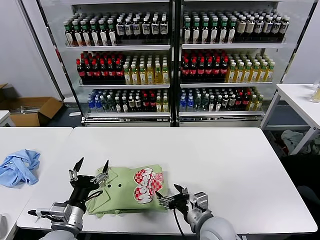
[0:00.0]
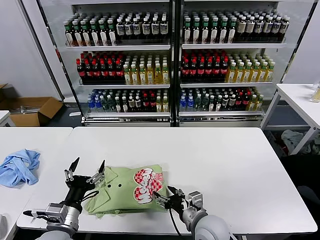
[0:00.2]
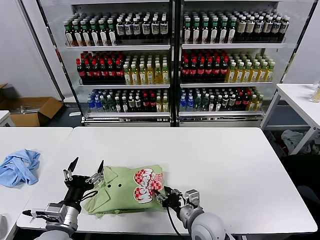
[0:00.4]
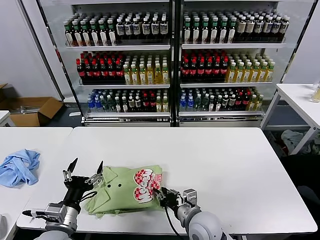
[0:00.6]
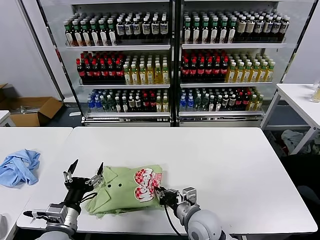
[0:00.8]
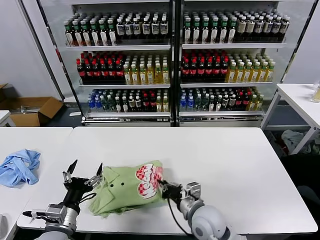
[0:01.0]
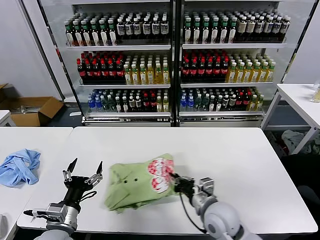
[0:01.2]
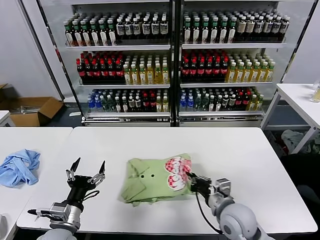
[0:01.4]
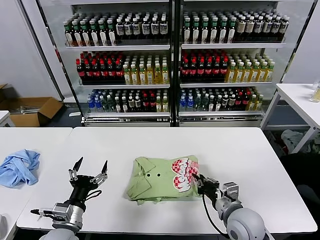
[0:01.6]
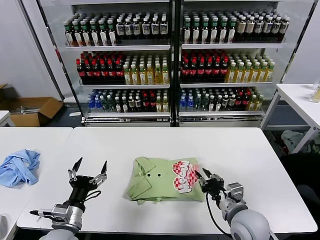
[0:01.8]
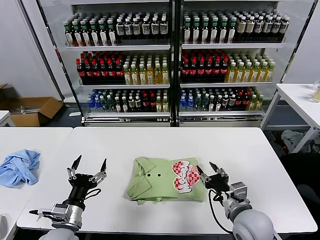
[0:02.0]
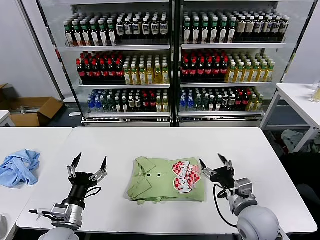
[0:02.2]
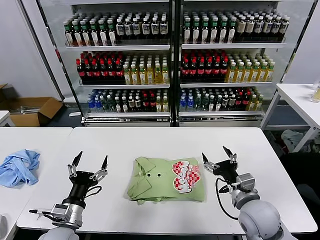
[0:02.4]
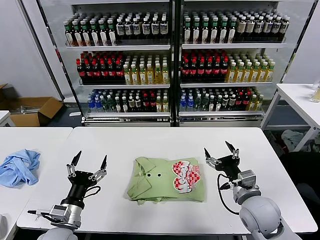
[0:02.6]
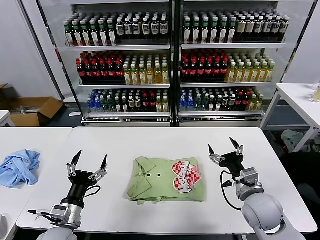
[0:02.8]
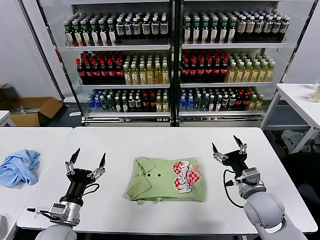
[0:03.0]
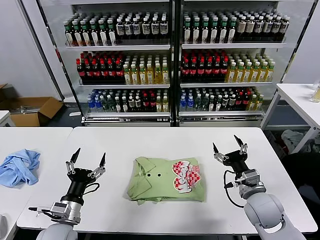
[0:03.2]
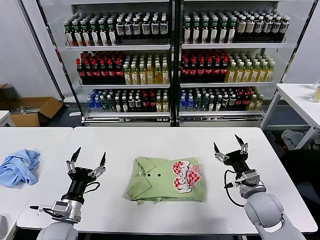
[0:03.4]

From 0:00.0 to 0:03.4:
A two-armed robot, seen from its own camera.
Task of the whole recording: fold and organize the clothes.
Step, from 0:00.0 to 0:01.8: Drag the clothes to the center of the table.
From 0:00.0 to 0:01.6: The right gripper is displaced to the right by about 5 cm, and closes.
From 0:01.6 to 0:03.4: The right gripper heads to the right, covering roughly 5 cm, and opens.

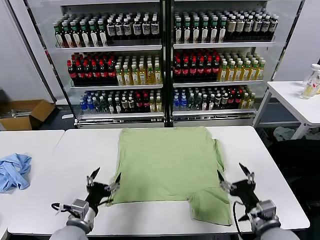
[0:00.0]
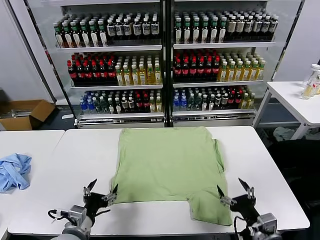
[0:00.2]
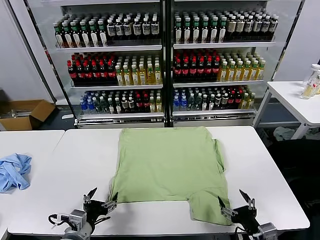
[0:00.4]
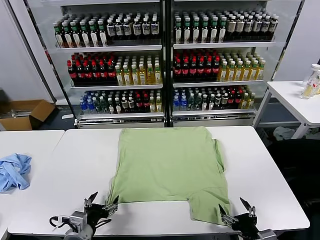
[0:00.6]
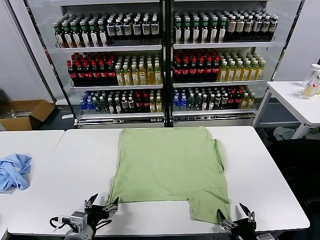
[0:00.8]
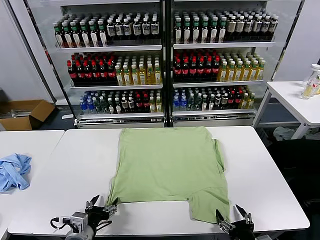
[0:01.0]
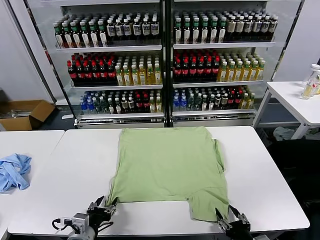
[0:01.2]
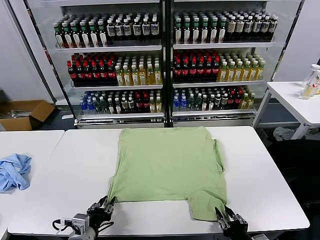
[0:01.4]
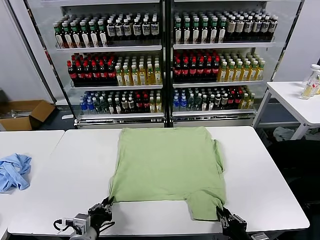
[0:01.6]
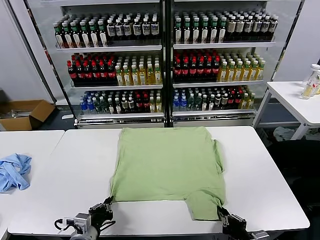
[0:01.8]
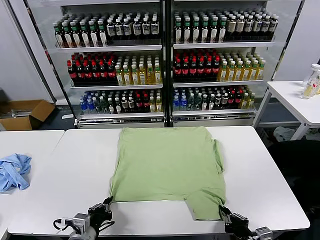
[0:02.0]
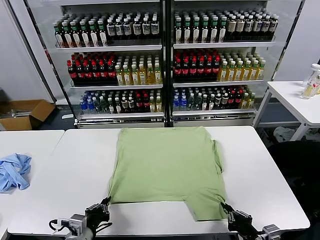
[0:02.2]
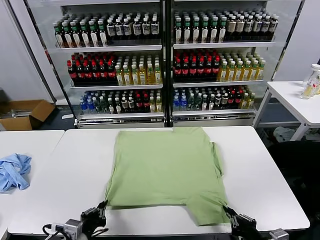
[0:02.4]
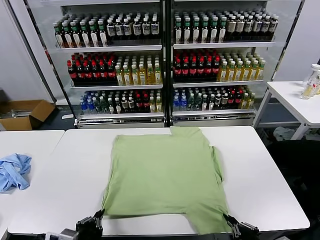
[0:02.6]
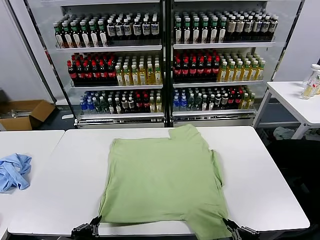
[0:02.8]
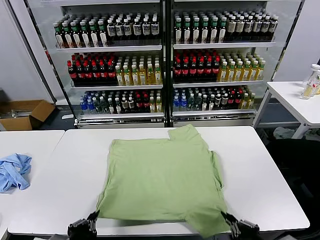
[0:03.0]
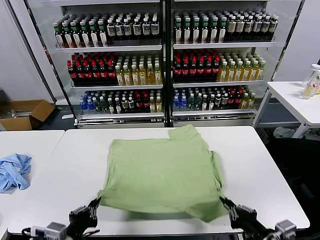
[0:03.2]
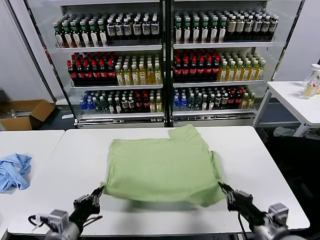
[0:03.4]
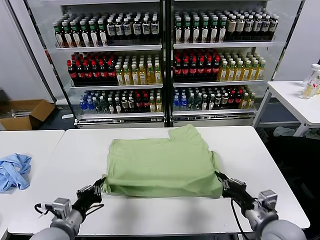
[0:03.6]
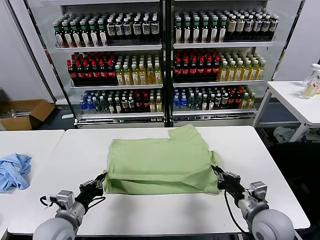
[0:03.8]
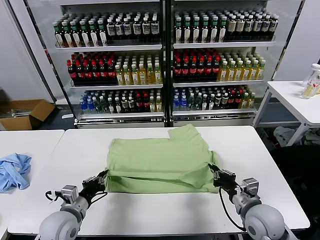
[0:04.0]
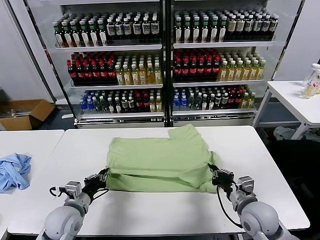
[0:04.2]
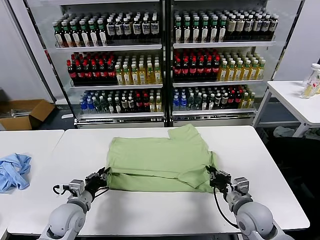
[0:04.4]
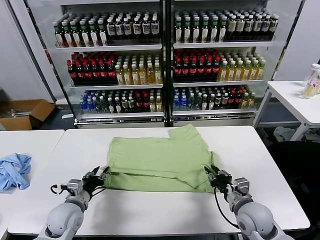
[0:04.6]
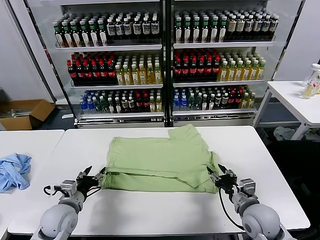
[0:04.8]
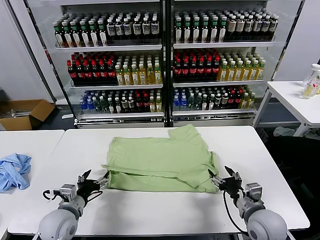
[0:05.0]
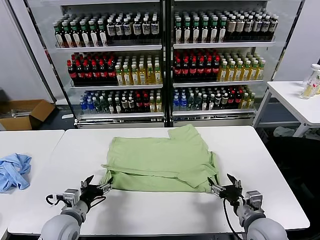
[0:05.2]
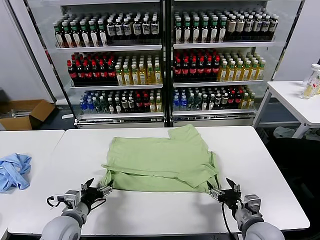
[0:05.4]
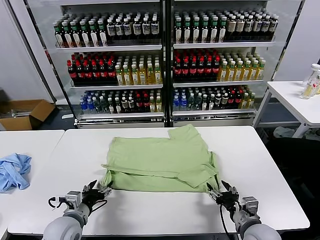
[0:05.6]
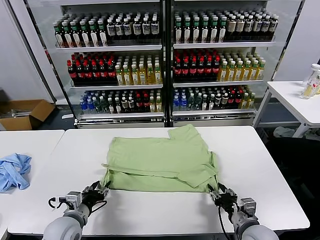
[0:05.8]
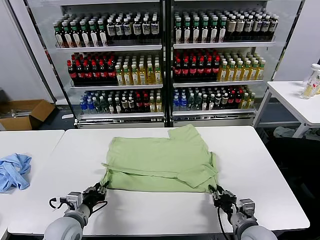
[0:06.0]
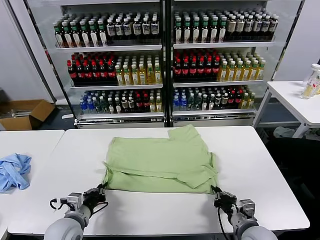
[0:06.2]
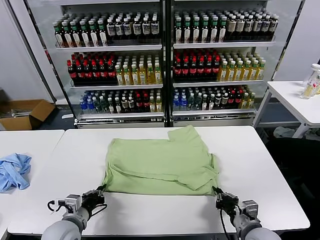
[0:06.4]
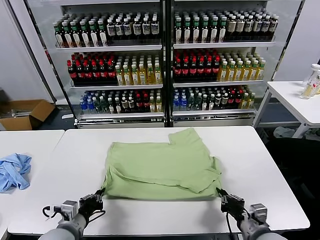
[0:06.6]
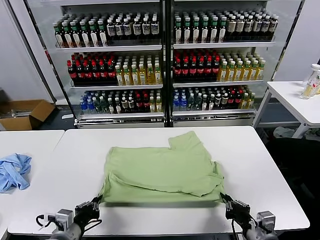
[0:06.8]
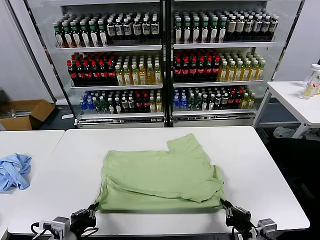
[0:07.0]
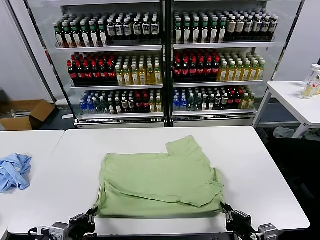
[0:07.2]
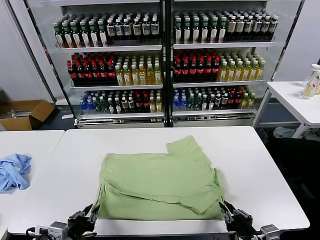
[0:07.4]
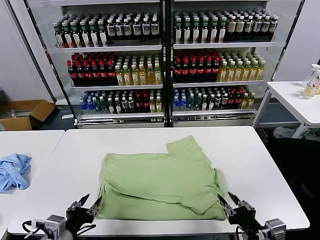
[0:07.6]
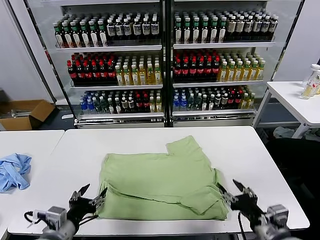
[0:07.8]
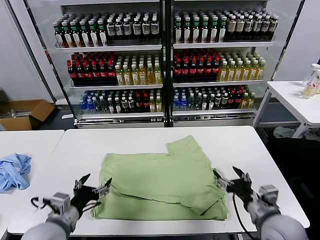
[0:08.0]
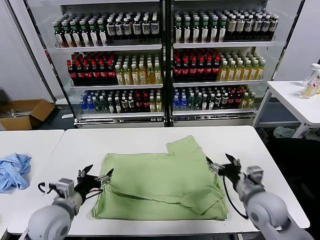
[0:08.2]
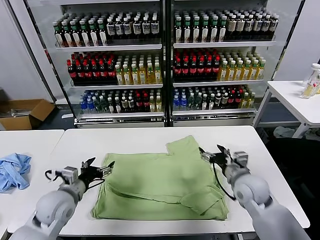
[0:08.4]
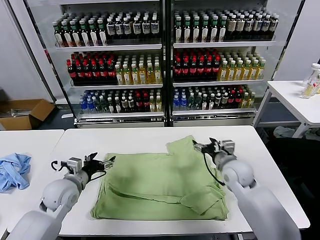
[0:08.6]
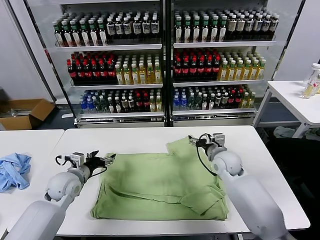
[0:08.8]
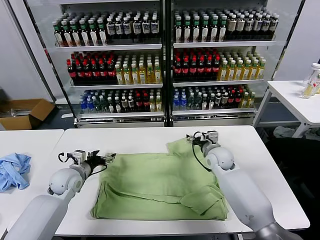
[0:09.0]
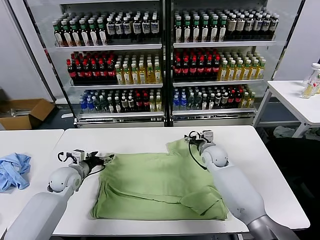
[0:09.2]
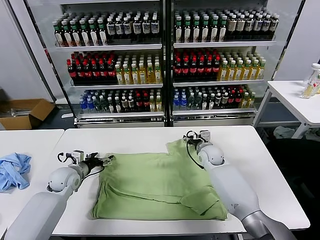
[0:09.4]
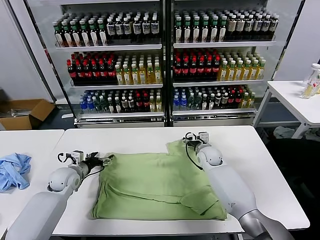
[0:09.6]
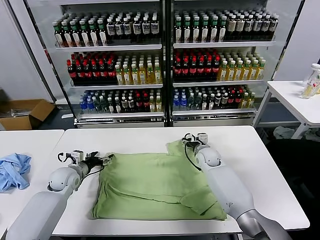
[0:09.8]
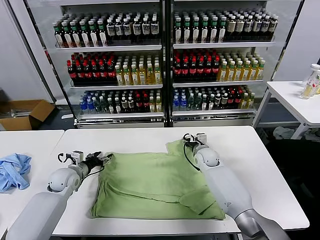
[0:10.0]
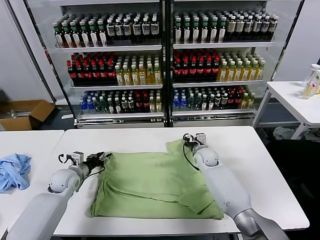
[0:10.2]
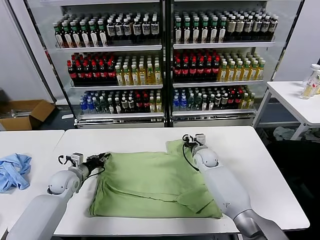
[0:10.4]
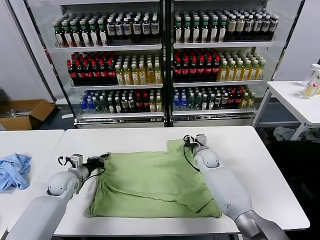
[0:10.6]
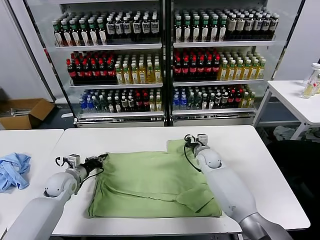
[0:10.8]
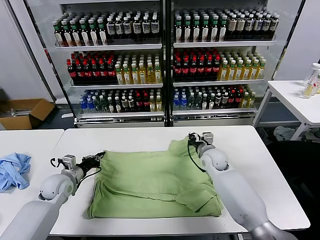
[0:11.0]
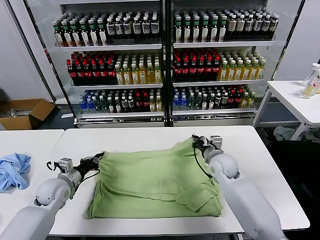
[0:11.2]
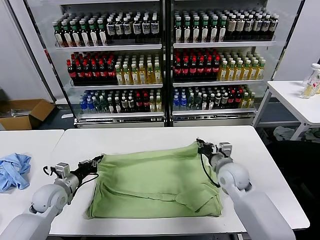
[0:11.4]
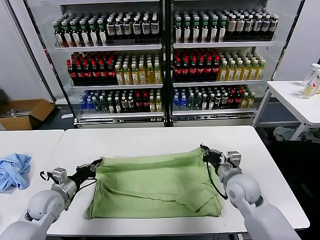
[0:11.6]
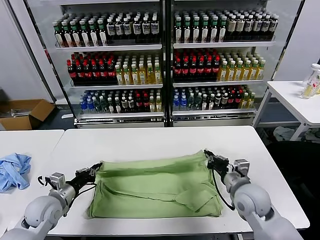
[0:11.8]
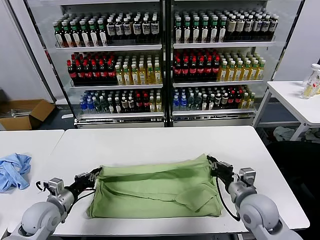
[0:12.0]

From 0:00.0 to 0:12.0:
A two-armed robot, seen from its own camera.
Task of the whole recording: fold and organize the clothes.
Step, from 0:00.0 to 0:02.2: use both grippers simultaneously to clamp the lower edge of the clothing fabric.
Step, from 0:02.4 to 0:04.8: use both grippers to drag the lower edge of the fabric forward and fold it over the upper edge.
Step, from 0:05.0 to 0:07.4: Drag the clothes downward with both gripper.
Step, from 0:07.6 to 0:10.6: use both grippers simultaneously to clamp the upper edge of the clothing fabric.
From 0:01.6 to 0:03.0: The right gripper is displaced upward by approximately 10 cm. The left gripper travels upward and backward by approximately 10 cm.
From 0:03.0 to 0:04.4: The grippers both shift forward and downward by some 20 cm.
From 0:04.4 to 0:06.0: The left gripper opens, then closes once more; the right gripper goes some 5 cm backward, and opens, then closes again.
From 0:06.0 to 0:07.6: The right gripper moves upward and backward, approximately 10 cm, and opens up. The left gripper moves backward and upward, approximately 15 cm, and closes and opens again.
From 0:07.6 to 0:09.0: The grippers both shift forward by some 30 cm. The left gripper opens its fingers. Meanwhile the right gripper opens up.
From 0:09.0 to 0:10.4: The left gripper shifts by about 5 cm, and closes up, while the right gripper is displaced downward by approximately 5 cm, and closes.
From 0:10.4 to 0:12.0: The right gripper heads backward, covering about 25 cm, while the left gripper travels backward by some 15 cm.

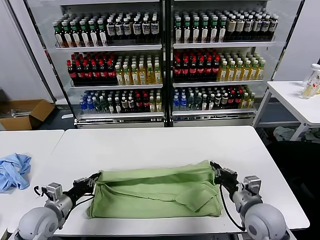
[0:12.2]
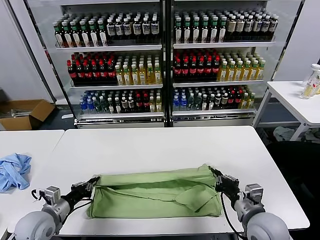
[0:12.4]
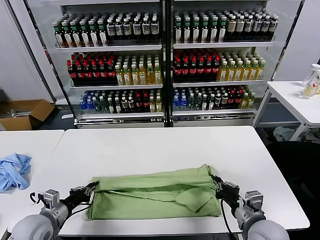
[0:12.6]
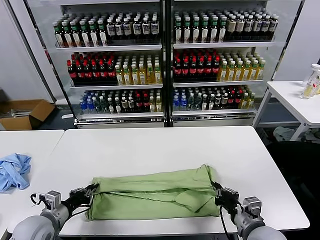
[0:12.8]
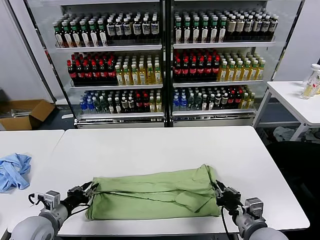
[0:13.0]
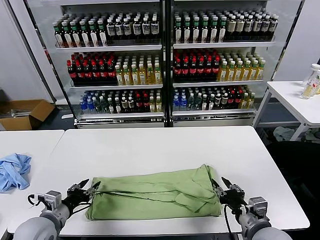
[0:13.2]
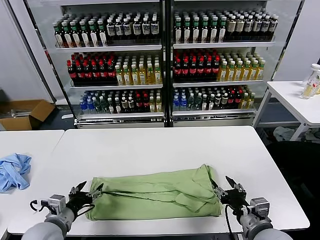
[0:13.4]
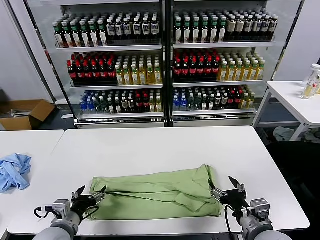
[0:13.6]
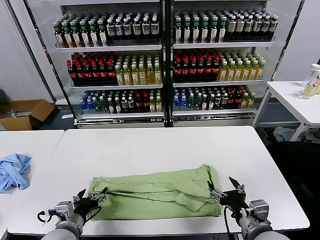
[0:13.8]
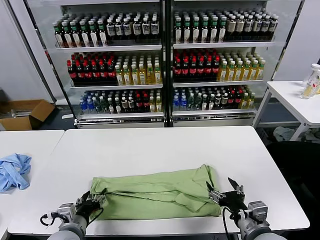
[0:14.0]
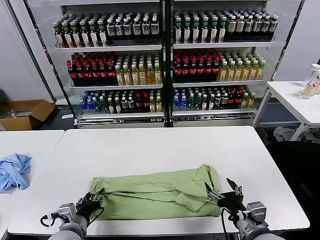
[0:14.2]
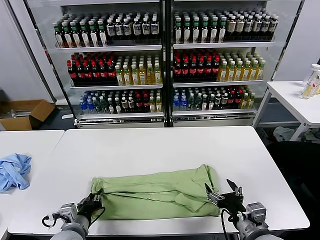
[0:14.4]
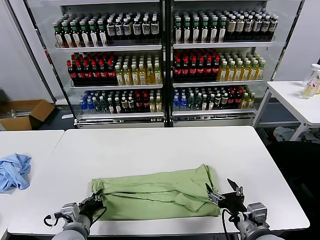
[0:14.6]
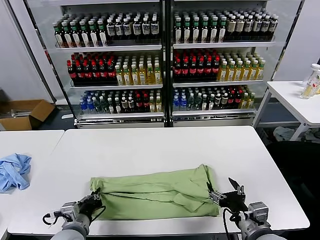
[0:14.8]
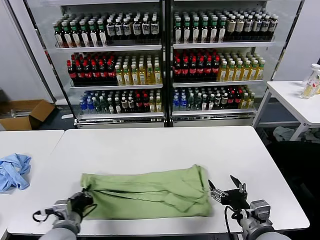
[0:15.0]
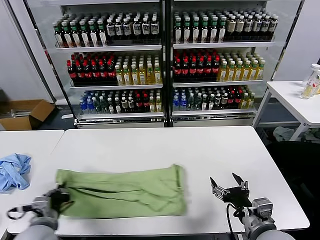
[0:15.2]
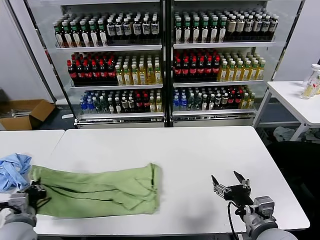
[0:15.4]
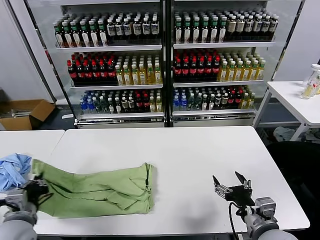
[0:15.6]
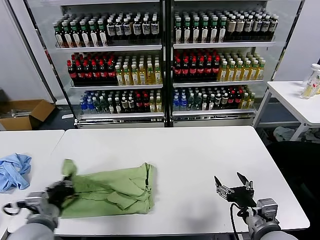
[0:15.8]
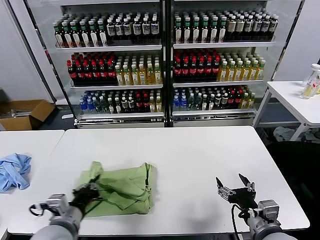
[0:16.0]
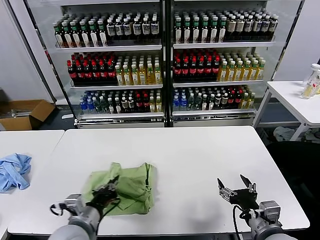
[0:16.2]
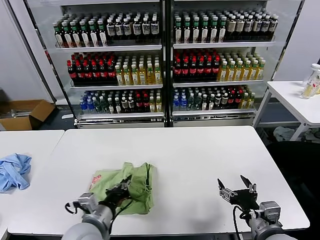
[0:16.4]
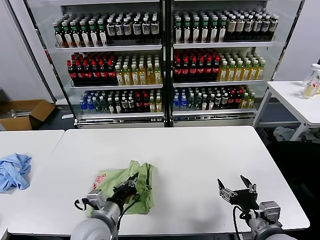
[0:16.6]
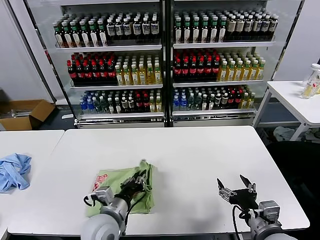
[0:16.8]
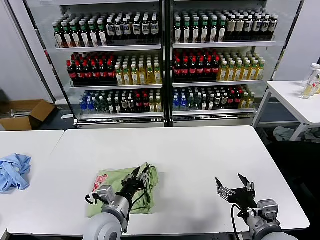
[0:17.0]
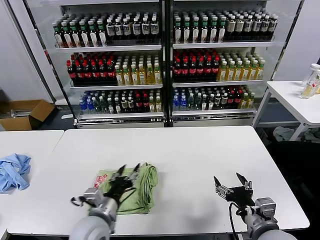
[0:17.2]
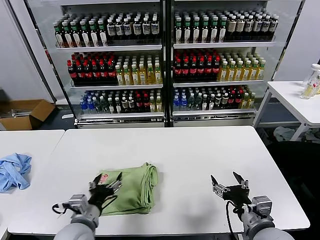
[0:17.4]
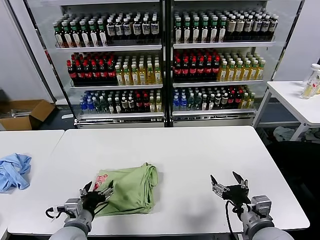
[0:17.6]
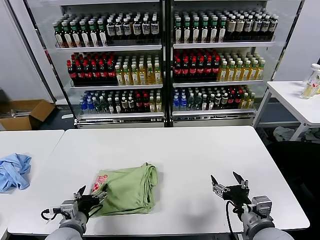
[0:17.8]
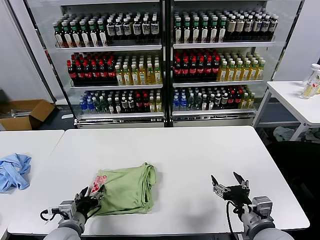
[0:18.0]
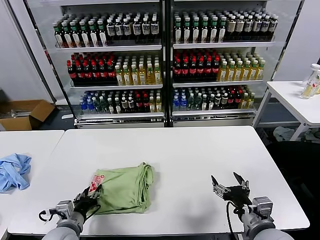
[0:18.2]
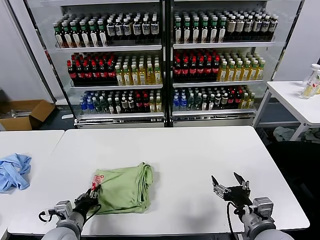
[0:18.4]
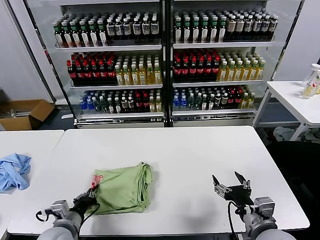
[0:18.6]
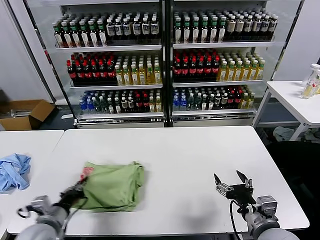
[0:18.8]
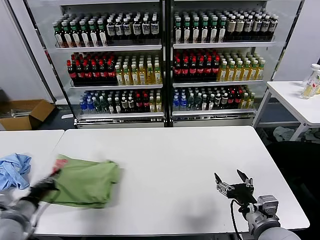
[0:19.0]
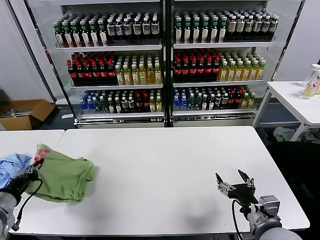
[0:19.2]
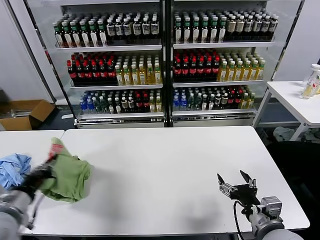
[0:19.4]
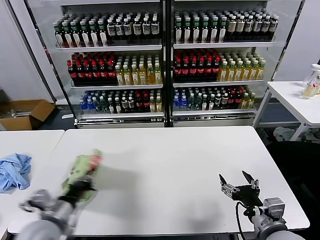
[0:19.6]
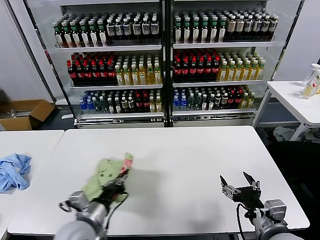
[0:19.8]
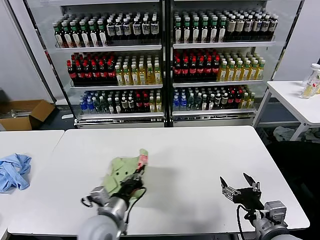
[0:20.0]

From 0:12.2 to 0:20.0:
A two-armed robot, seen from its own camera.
Task of the whole recording: fold and organize the clothes.
Step, from 0:13.4 to 0:14.6: use the left gripper to clamp the left edge of the fabric.
Step, from 0:14.8 to 0:17.0: use the left gripper to drag the left edge of the fabric to the left and folds it over the right edge.
From 0:12.2 to 0:13.8: The left gripper travels to the right and backward by roughly 10 cm, and opens its fingers. Meanwhile the right gripper moves backward, some 5 cm, and opens.
From 0:13.8 to 0:15.4: The left gripper goes about 10 cm to the left, and closes.
From 0:15.4 to 0:16.8: The left gripper is displaced to the right by approximately 20 cm.
From 0:16.8 to 0:18.4: The left gripper travels to the left and downward by some 15 cm, and opens and closes again.
From 0:18.4 to 0:20.0: The left gripper shifts about 15 cm to the right and upward.
